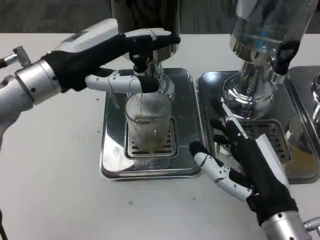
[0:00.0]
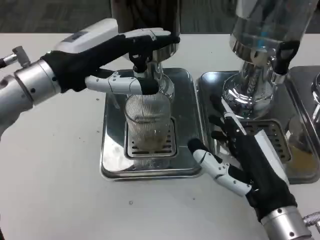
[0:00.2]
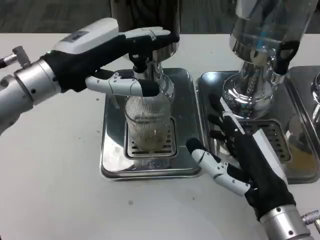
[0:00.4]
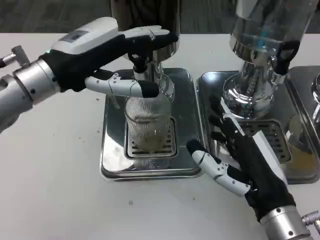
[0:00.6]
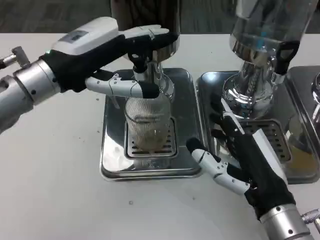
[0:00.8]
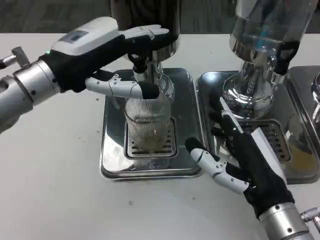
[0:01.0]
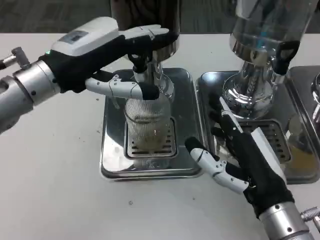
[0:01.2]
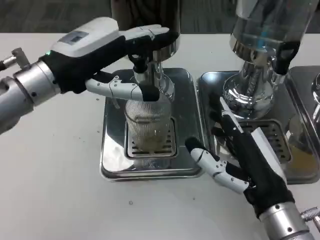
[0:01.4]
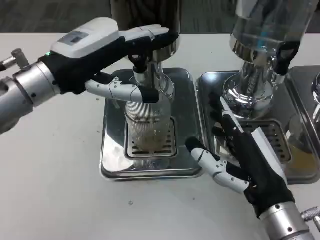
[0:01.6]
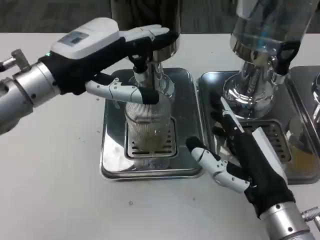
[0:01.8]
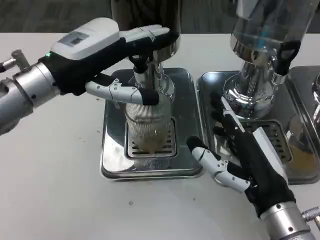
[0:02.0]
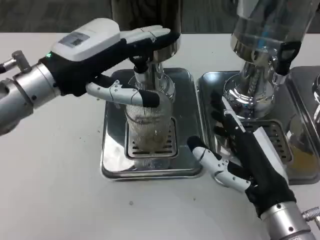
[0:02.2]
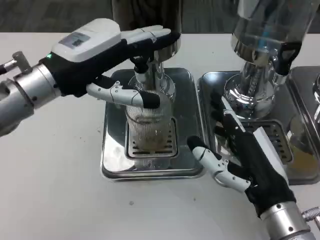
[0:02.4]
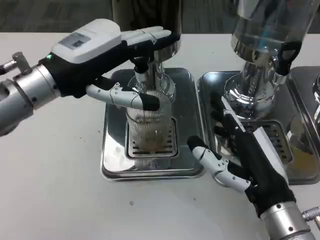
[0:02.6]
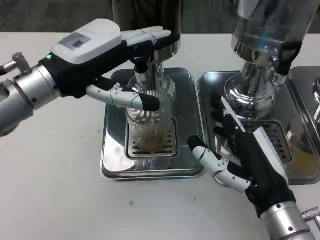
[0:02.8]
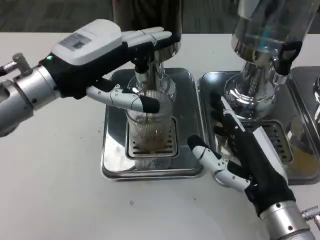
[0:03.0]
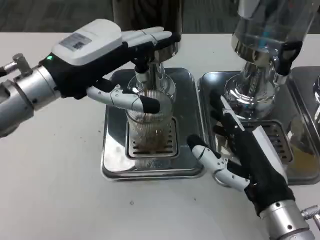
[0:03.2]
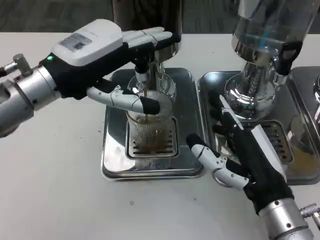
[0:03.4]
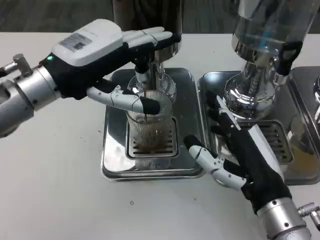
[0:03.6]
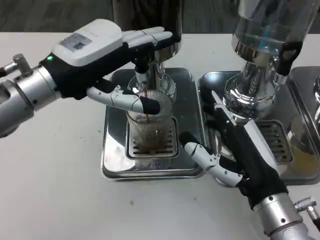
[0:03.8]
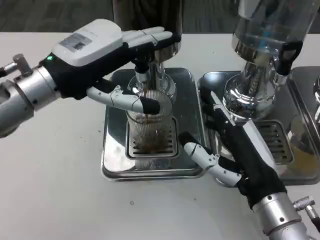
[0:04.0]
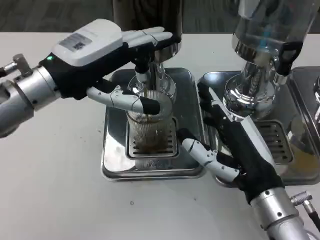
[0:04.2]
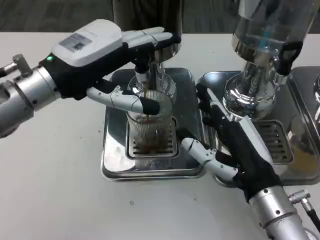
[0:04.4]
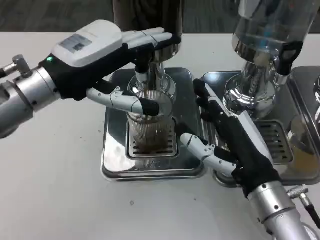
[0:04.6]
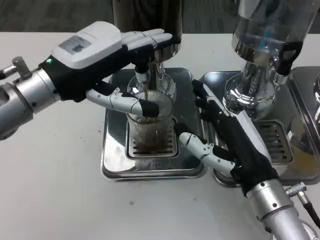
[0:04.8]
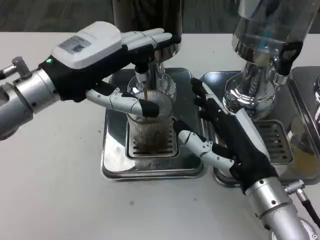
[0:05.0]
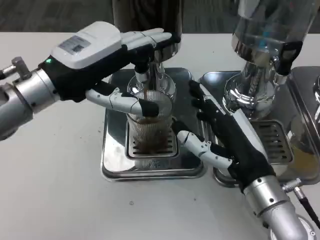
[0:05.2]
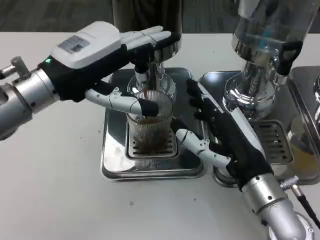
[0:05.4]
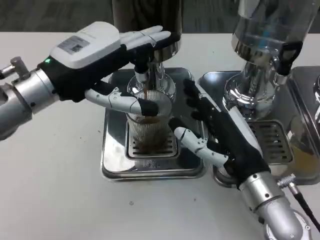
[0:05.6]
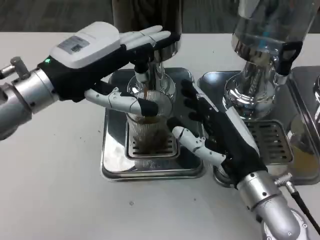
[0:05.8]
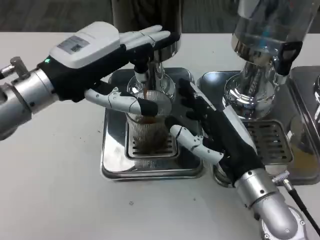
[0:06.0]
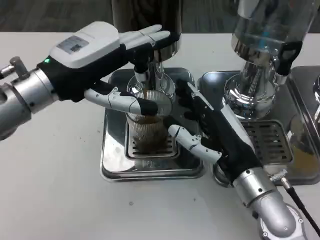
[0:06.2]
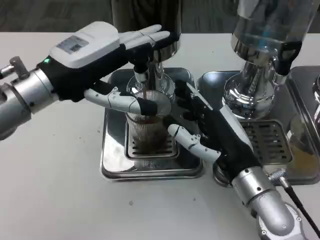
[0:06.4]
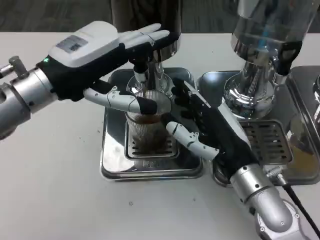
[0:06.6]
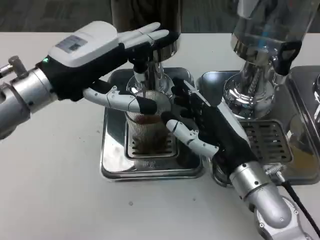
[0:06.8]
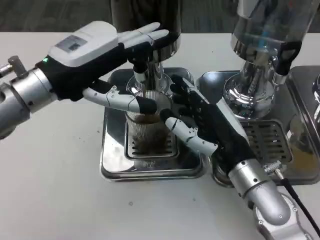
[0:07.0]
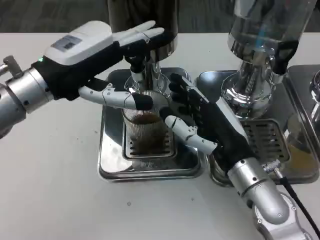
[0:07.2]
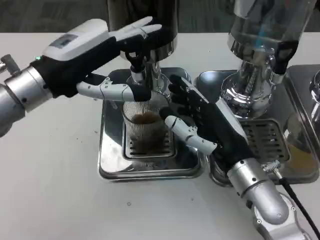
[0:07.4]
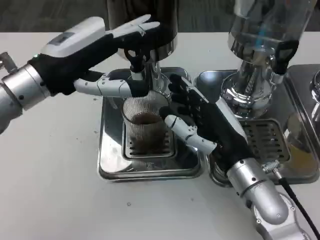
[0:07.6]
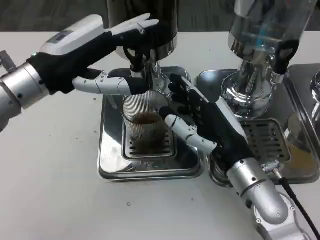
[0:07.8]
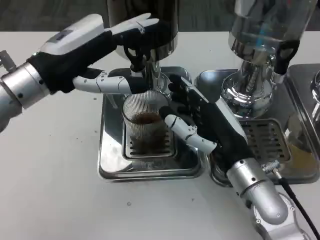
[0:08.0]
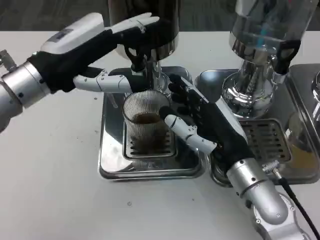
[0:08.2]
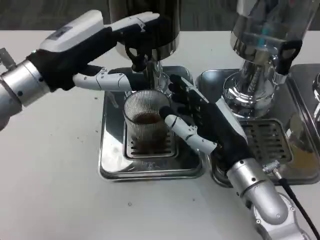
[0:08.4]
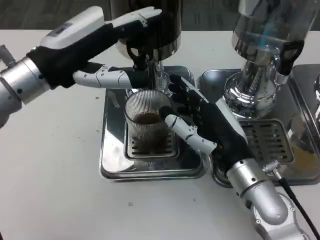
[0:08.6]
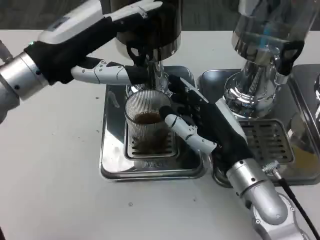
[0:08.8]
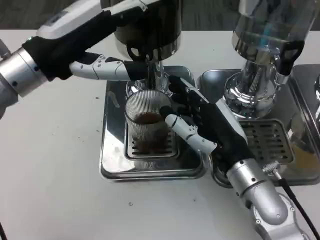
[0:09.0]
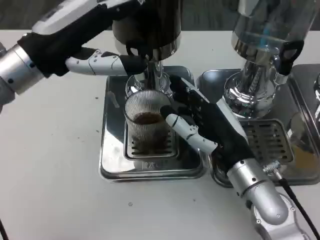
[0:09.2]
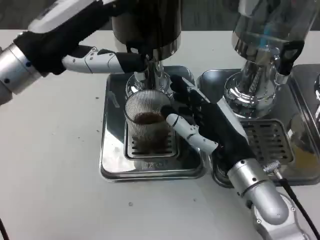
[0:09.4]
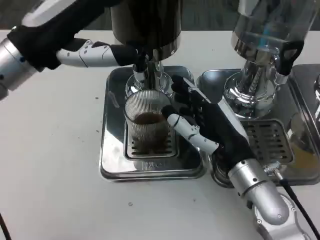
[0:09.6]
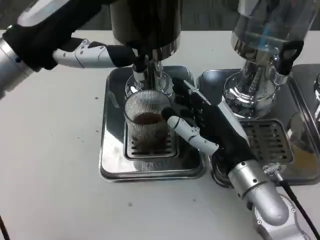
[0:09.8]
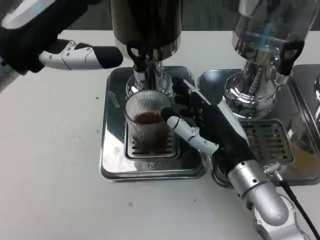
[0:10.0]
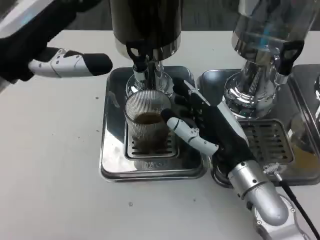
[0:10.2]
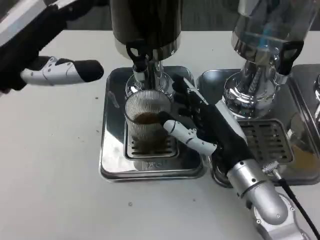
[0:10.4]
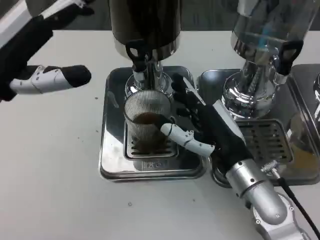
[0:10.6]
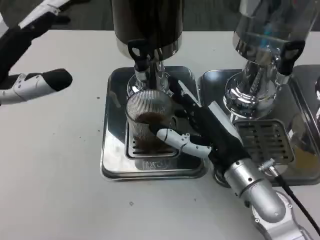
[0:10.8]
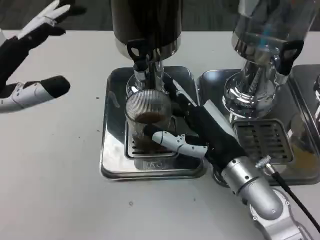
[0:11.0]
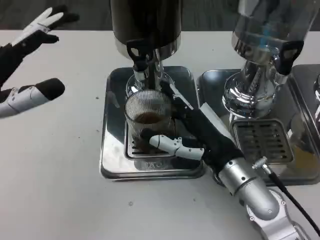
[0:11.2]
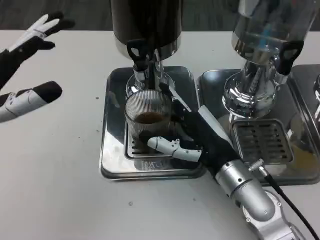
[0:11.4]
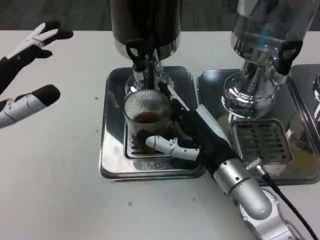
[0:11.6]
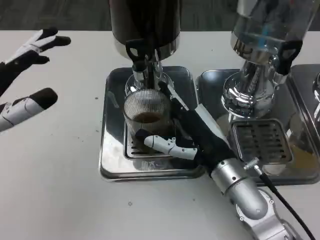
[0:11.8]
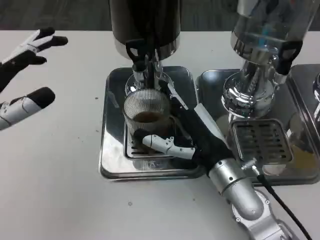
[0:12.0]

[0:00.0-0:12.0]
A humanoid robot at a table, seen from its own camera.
Task of the whole recording: Grasp the cup under the faucet to collect the drink, then remove the cup.
0:00.0 to 0:04.4: The hands stay close to where they were, moving slightly.
0:04.4 to 0:06.0: The hands move only a little.
0:09.0 to 0:10.4: The left hand changes place by some 5 cm.
0:10.4 to 0:12.0: The left hand moves backward, about 5 cm.

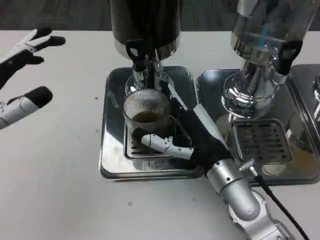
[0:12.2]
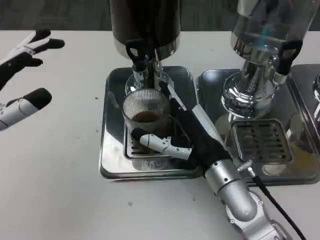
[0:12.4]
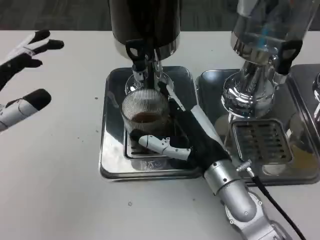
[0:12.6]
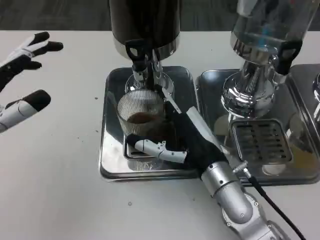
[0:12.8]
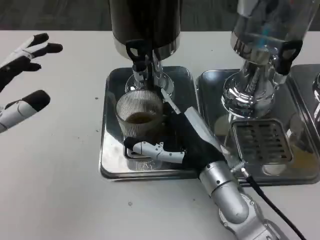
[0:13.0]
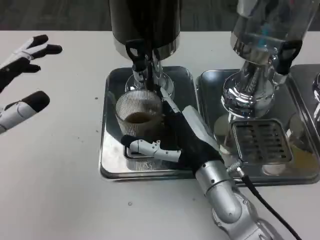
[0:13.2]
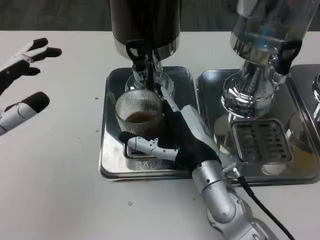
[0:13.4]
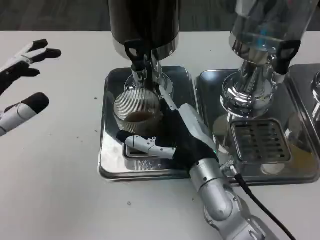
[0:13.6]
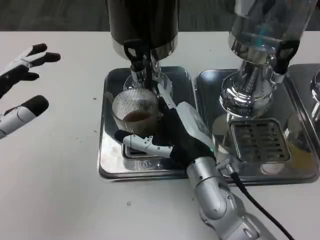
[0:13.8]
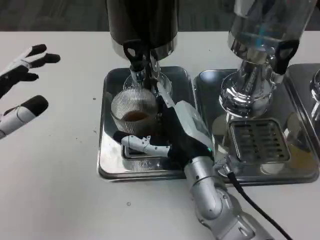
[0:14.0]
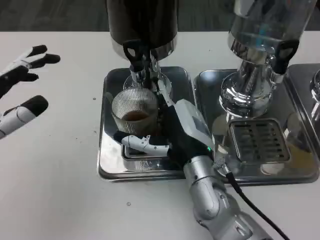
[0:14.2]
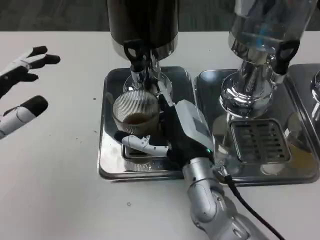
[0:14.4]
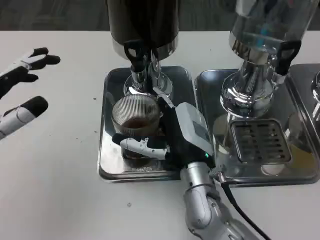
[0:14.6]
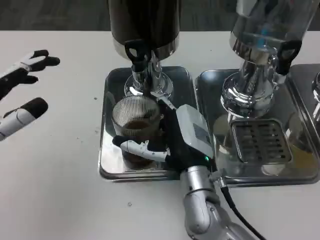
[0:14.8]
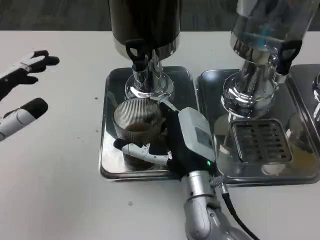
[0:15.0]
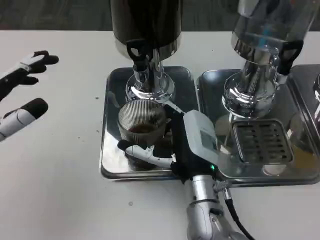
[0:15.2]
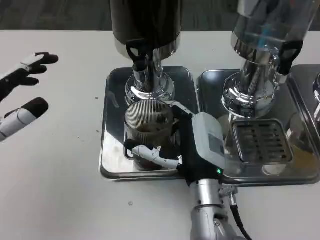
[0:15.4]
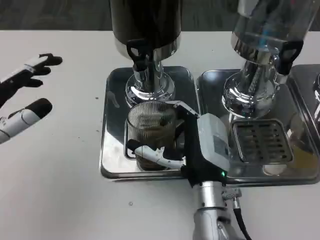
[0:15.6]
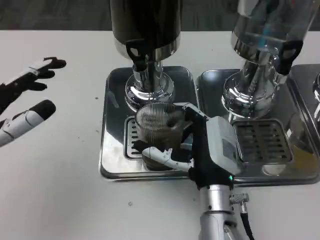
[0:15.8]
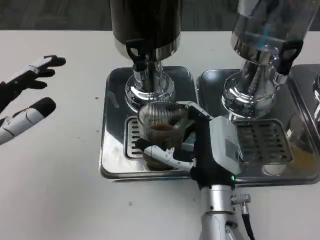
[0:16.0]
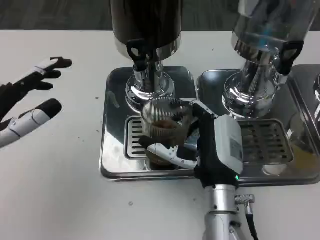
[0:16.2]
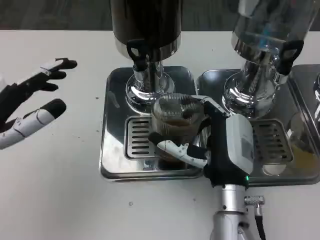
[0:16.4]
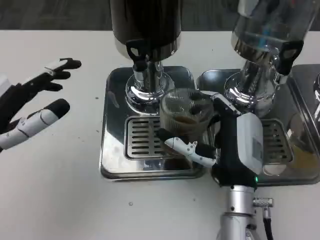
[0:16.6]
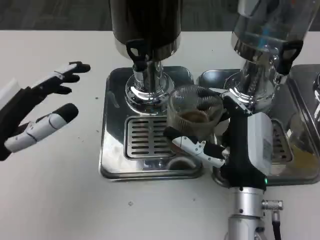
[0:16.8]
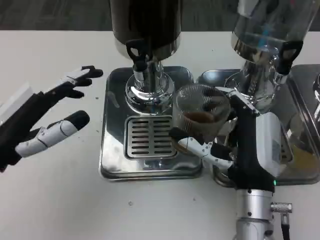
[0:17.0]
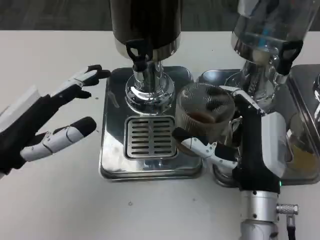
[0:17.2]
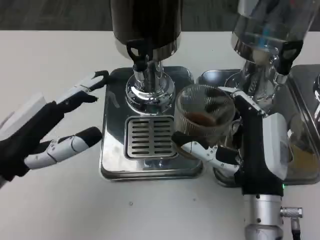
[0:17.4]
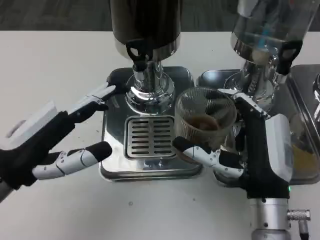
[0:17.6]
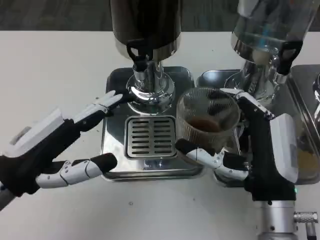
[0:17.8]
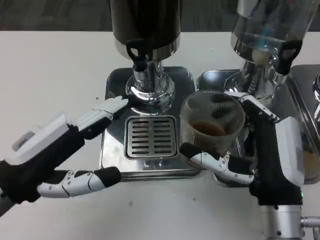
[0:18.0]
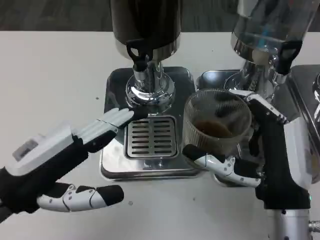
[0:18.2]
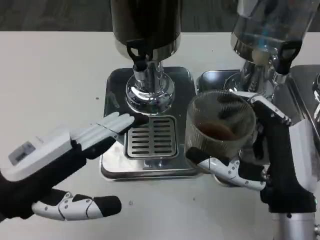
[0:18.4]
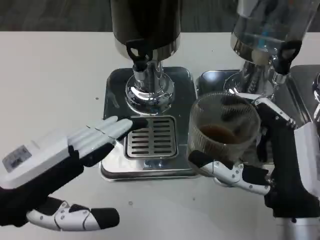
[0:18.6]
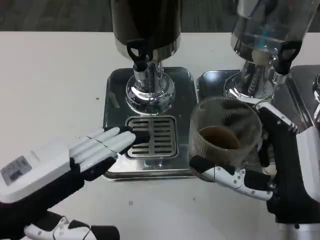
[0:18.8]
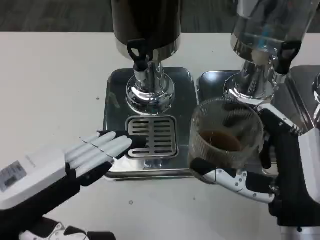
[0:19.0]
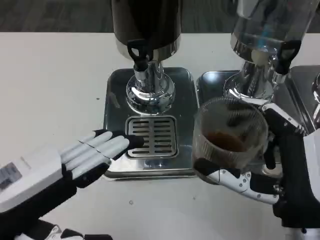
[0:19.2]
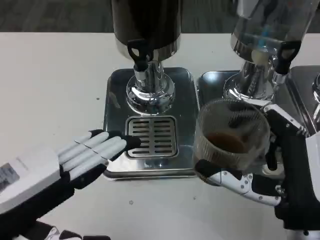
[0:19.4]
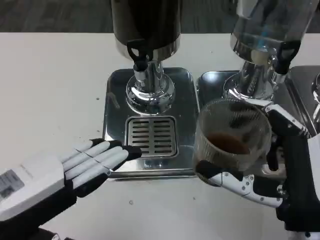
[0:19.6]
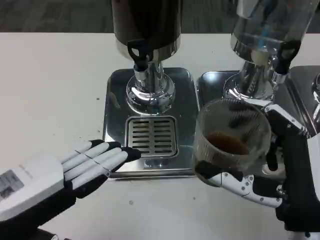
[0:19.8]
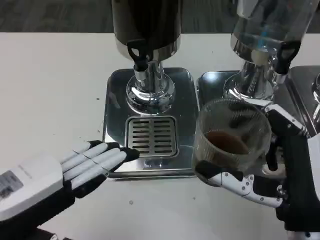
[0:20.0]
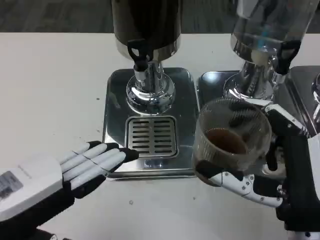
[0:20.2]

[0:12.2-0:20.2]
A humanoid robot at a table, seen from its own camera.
Task of the whole recording: Grasp the cup under the faucet to collect the drink, then remove the cup.
0:15.4 to 0:17.0: The right hand goes approximately 5 cm to the right.
0:17.0 to 0:18.6: Both hands travel together backward, some 5 cm.

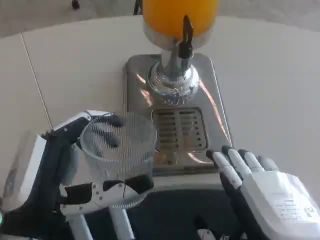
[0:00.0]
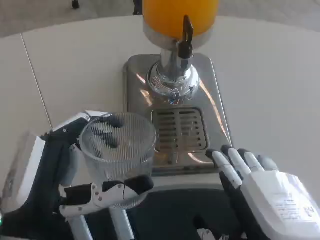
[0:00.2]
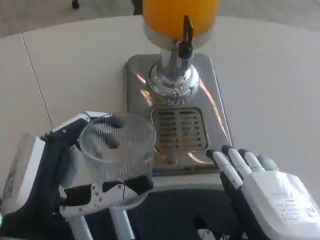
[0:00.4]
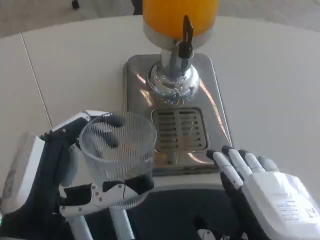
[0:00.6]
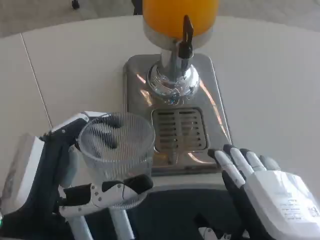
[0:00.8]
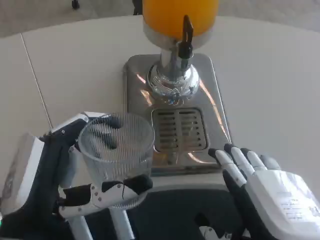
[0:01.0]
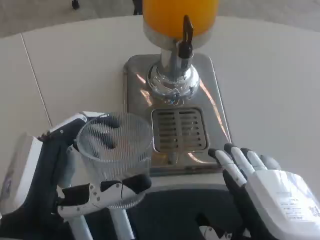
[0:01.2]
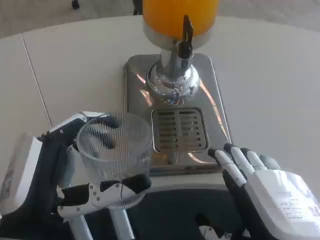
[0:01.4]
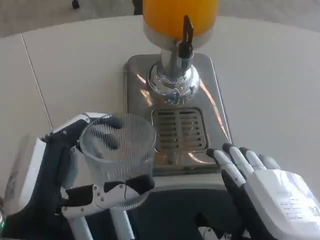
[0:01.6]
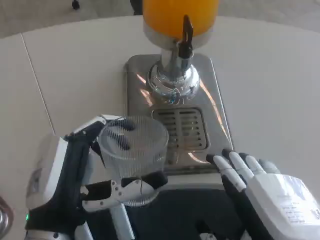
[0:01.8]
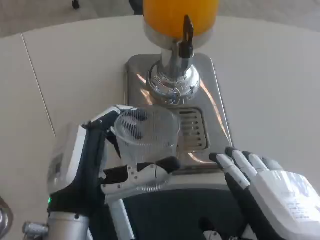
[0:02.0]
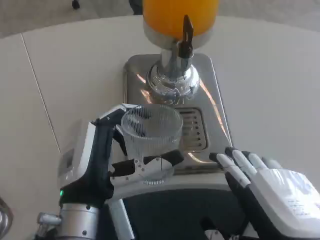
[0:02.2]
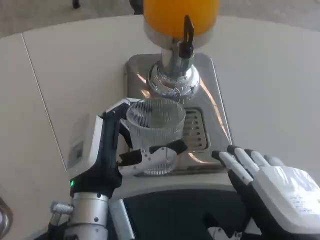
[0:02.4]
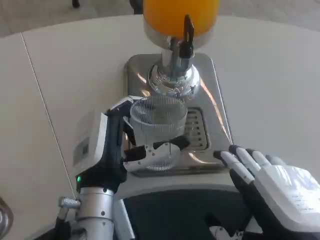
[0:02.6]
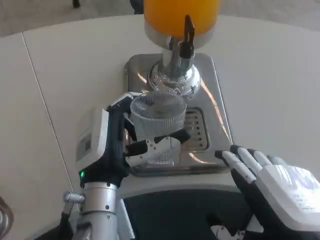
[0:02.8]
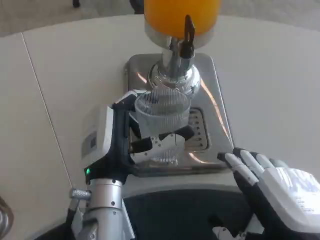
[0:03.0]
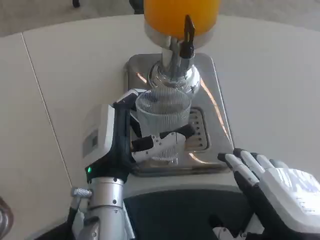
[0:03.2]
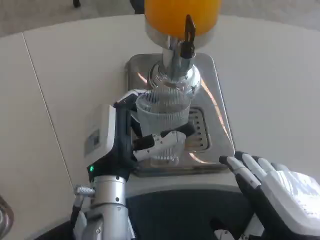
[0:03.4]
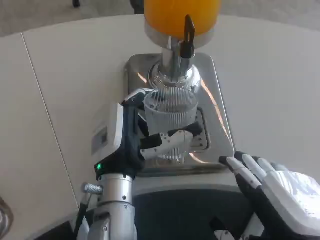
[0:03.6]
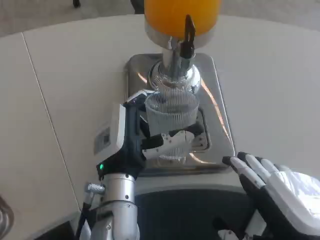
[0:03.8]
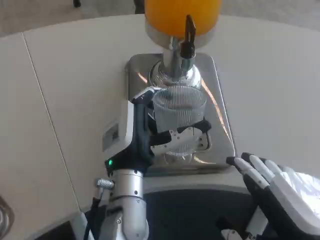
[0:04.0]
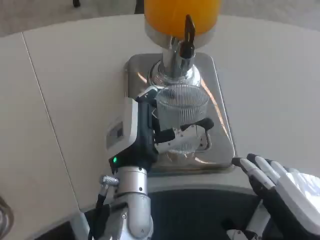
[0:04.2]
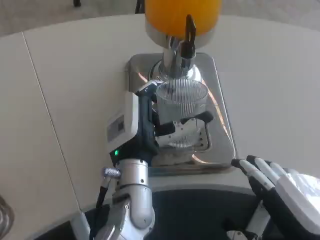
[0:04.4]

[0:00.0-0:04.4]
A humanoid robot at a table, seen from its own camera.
Task of the whole recording: Grasp the cup under the faucet to collect the drink, then remove the cup.
0:00.0 to 0:01.4: Both hands stay about where they are.
0:01.4 to 0:03.0: The left hand heads forward and to the right, covering about 15 cm.
0:03.0 to 0:04.4: The left hand changes place by about 5 cm.